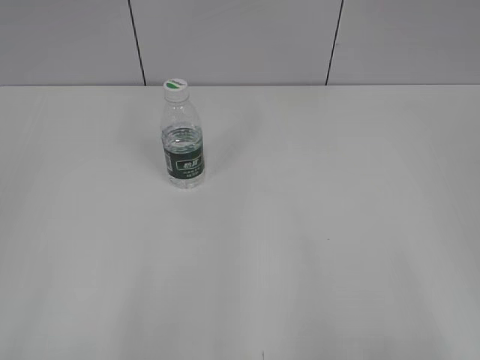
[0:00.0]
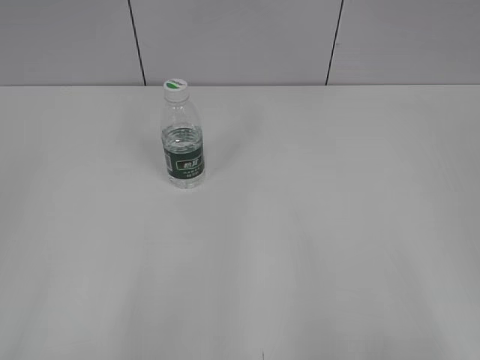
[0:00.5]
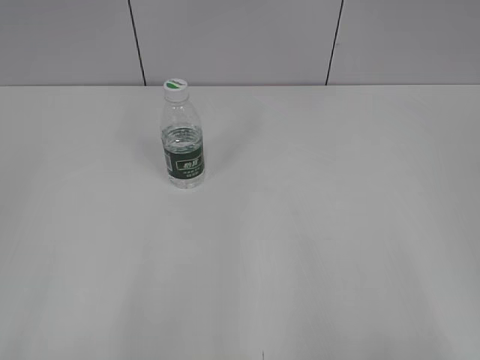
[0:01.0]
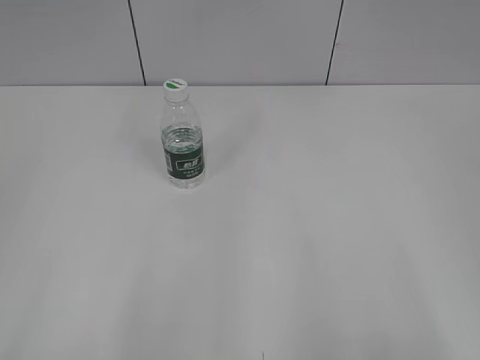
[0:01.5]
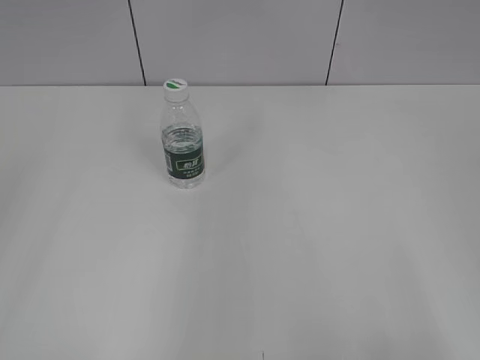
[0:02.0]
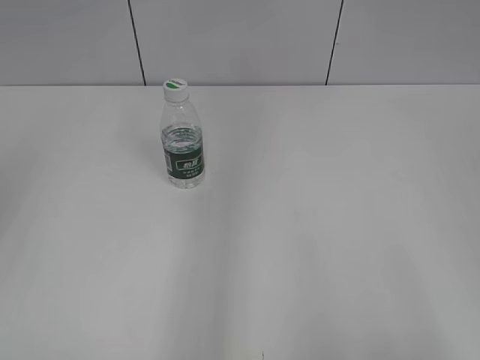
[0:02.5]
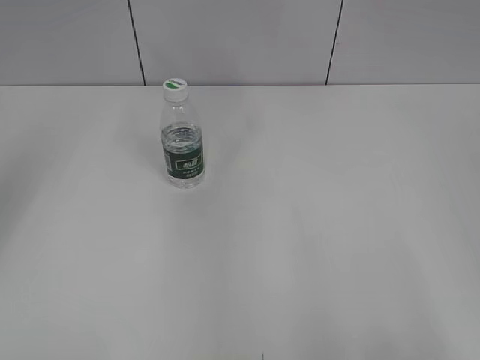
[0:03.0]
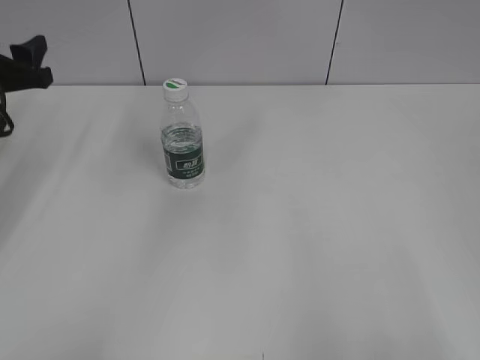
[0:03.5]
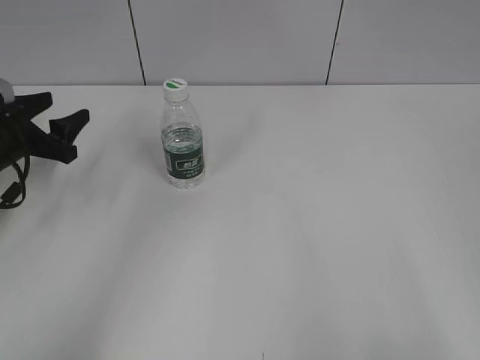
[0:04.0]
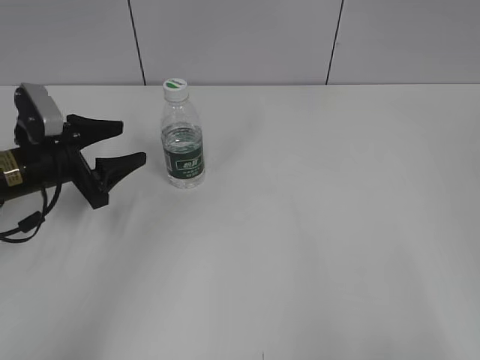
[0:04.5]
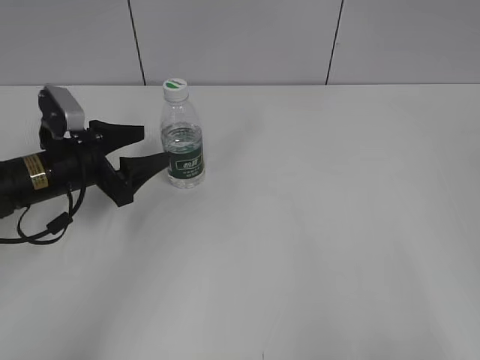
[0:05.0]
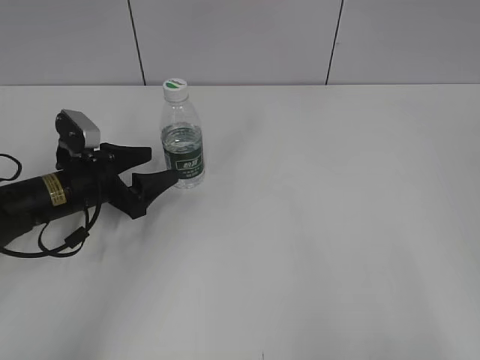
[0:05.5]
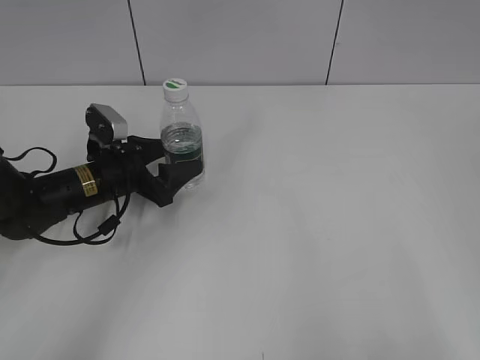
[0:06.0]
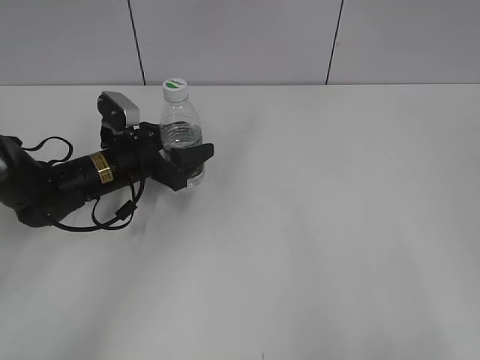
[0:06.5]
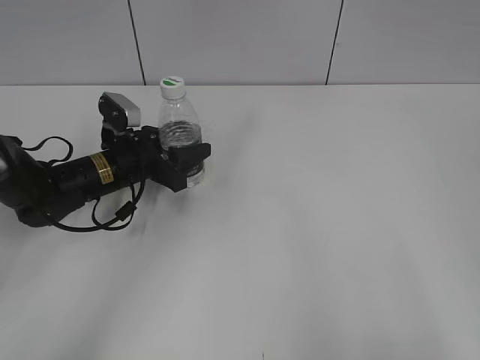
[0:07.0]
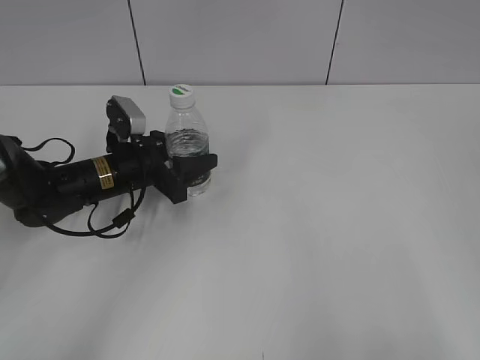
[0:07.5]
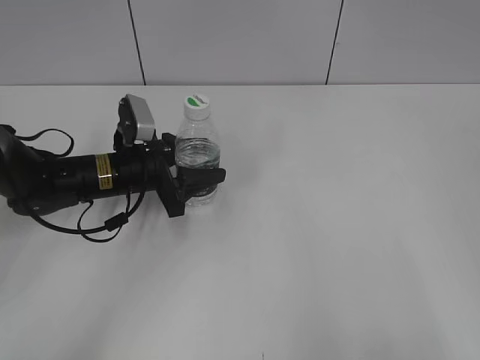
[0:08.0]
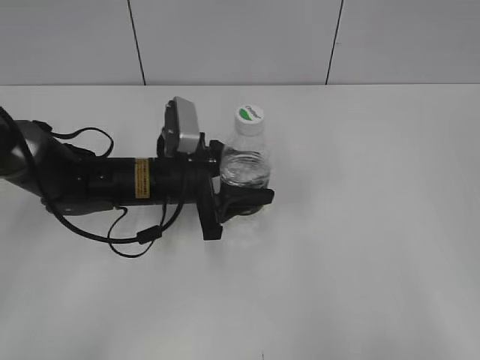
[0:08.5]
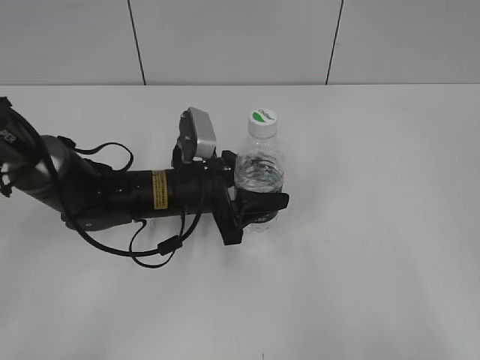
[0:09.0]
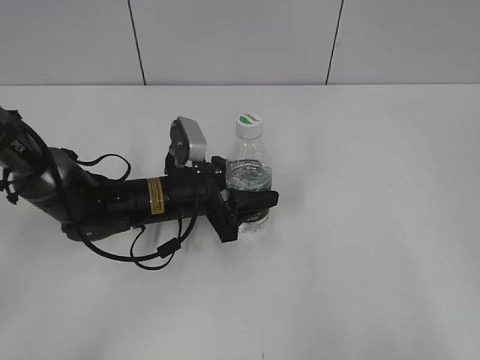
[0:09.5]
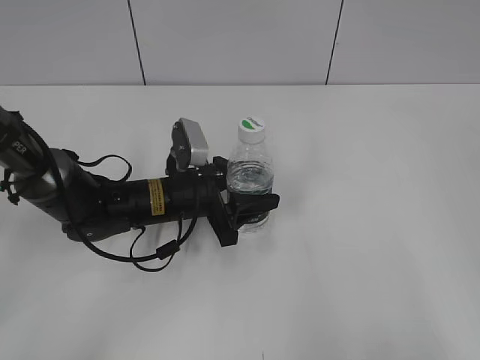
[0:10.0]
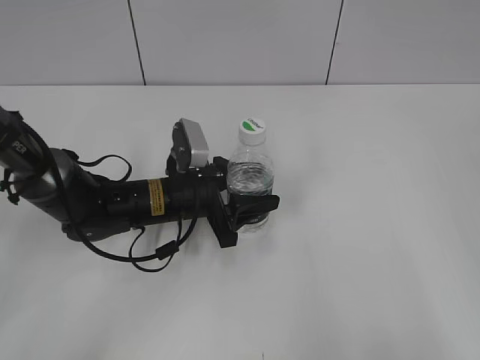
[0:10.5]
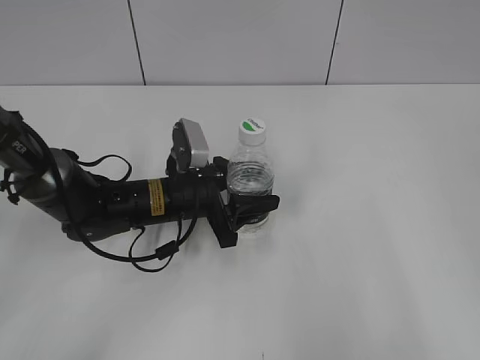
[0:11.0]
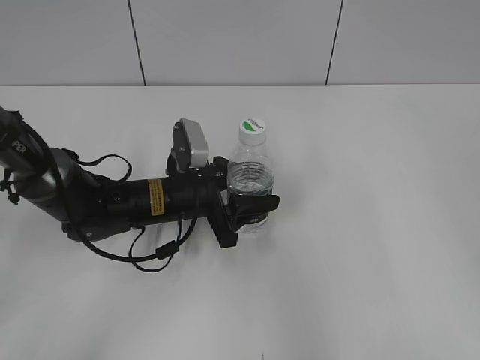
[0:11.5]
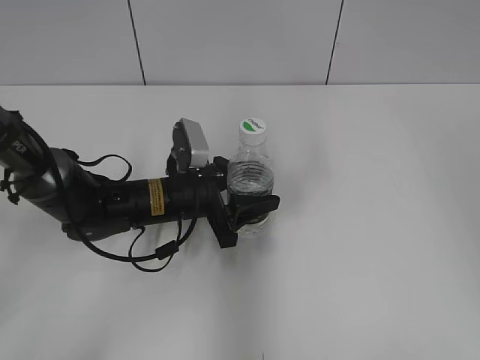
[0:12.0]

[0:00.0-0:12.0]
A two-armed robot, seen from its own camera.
Step, 0:00.0 to 0:07.0: Grasp the bottle and move it to the center of the table with the left gripper.
Step, 0:07.5 to 0:09.5: Lift the bottle and move it to the center of the table with the left gripper.
0:02.0 to 0:04.0: The left gripper goes approximately 40 cm forward and downward.
0:04.0 to 0:06.0: The left gripper moves to the right and downward, approximately 15 cm.
0:06.0 to 0:08.0: The left gripper closes up.
0:08.0 to 0:10.0: The left gripper heads to the right, covering some 5 cm.
0:10.0 to 0:12.0: The right gripper shifts approximately 20 cm forward and upward.

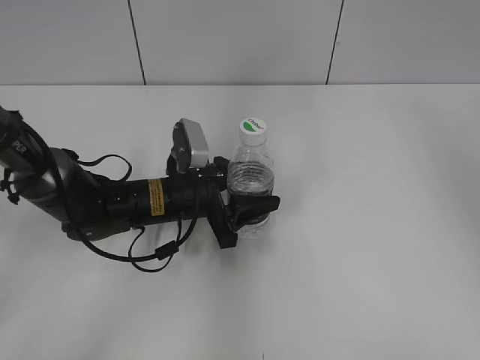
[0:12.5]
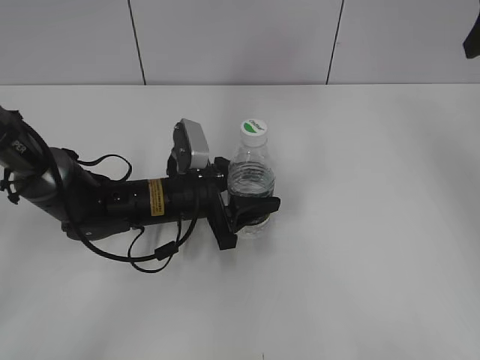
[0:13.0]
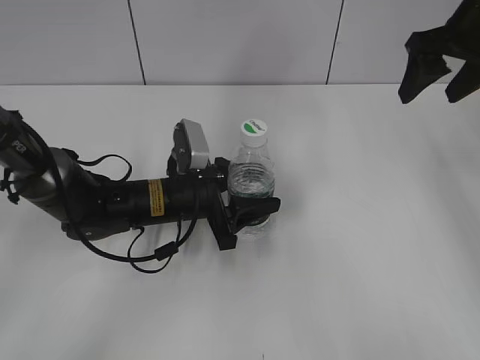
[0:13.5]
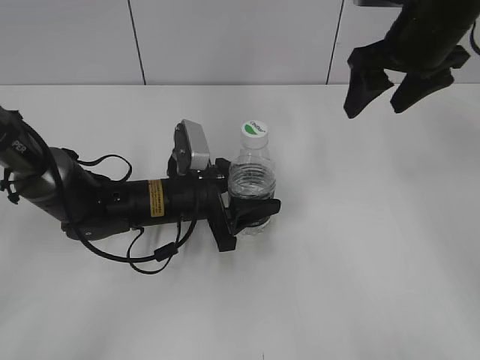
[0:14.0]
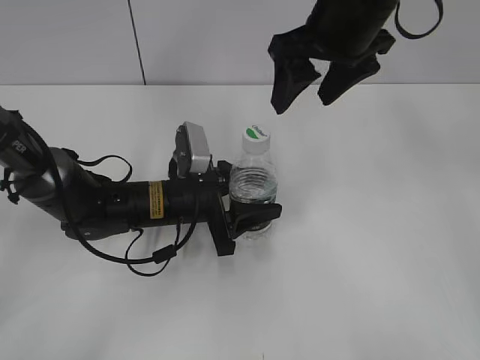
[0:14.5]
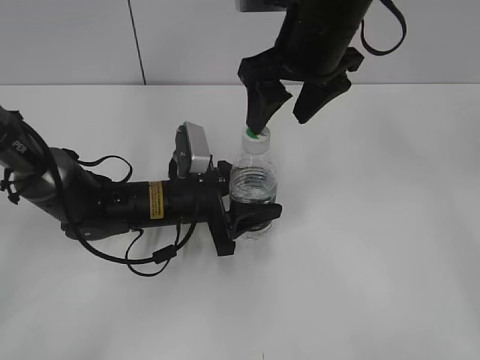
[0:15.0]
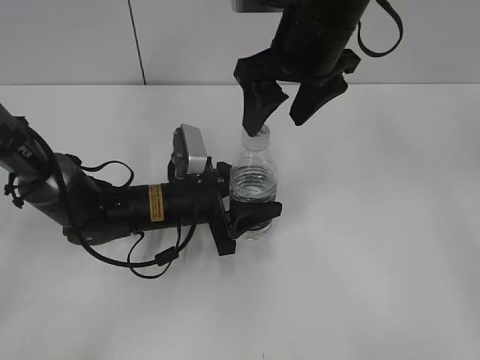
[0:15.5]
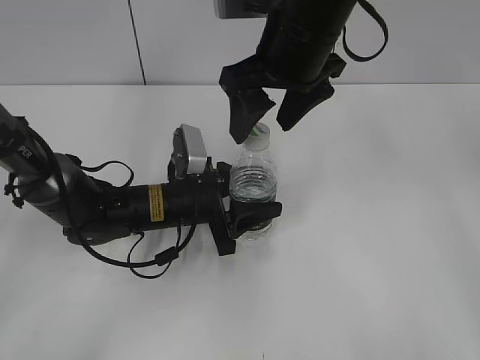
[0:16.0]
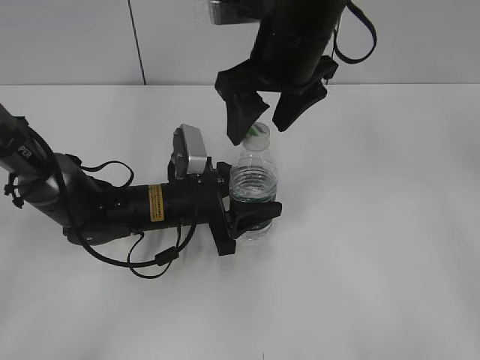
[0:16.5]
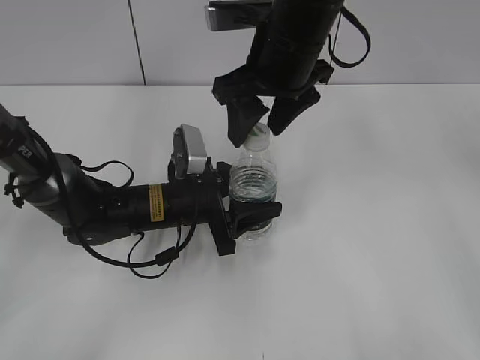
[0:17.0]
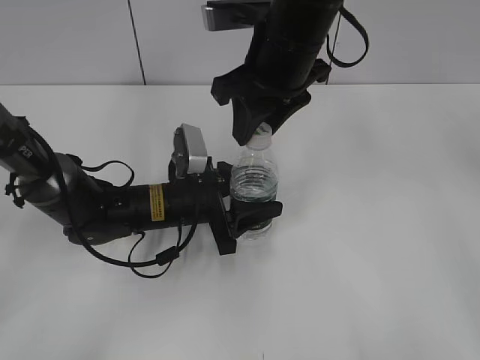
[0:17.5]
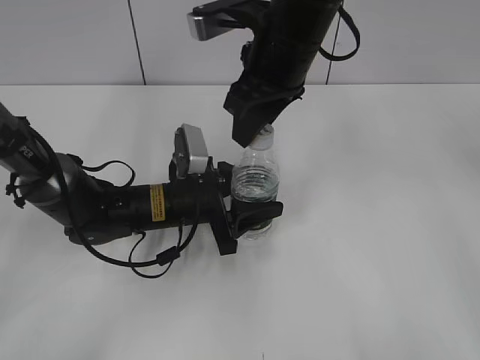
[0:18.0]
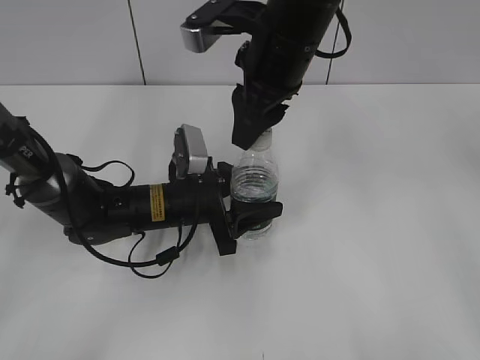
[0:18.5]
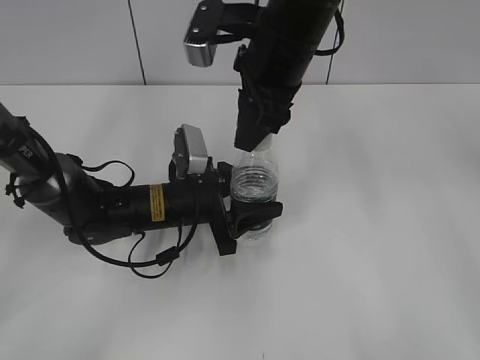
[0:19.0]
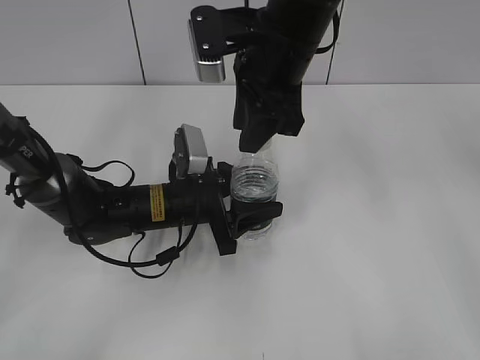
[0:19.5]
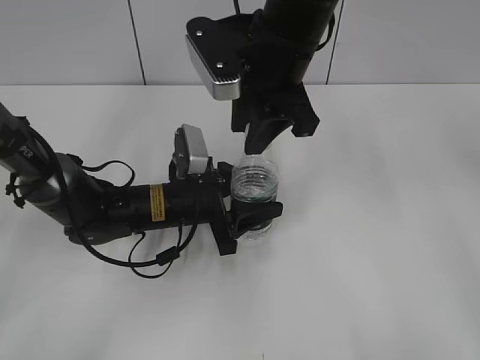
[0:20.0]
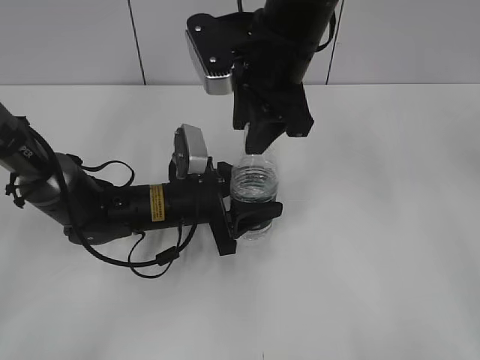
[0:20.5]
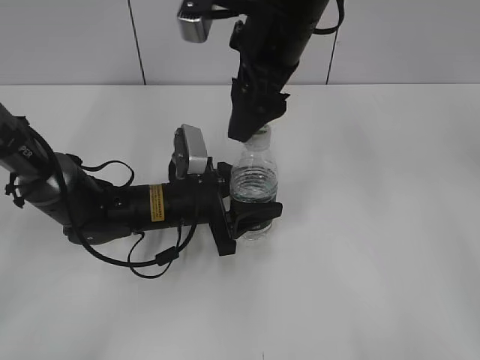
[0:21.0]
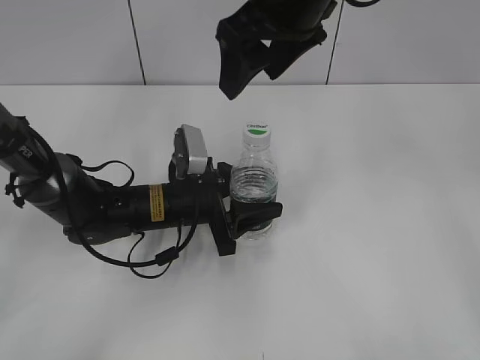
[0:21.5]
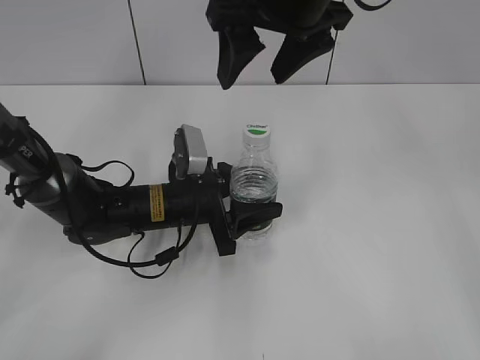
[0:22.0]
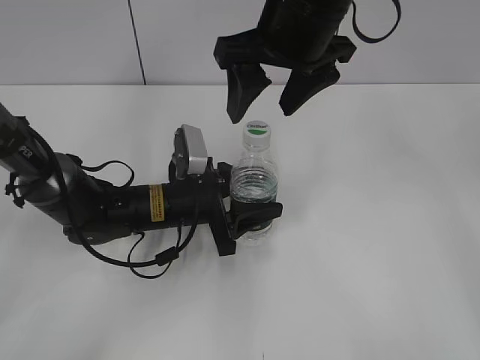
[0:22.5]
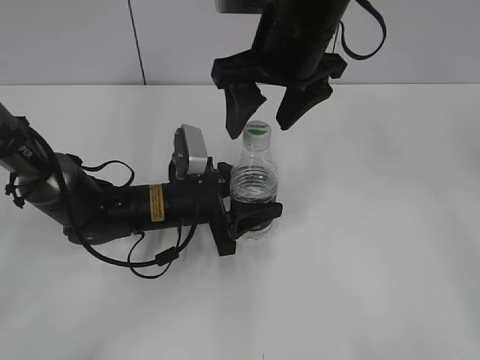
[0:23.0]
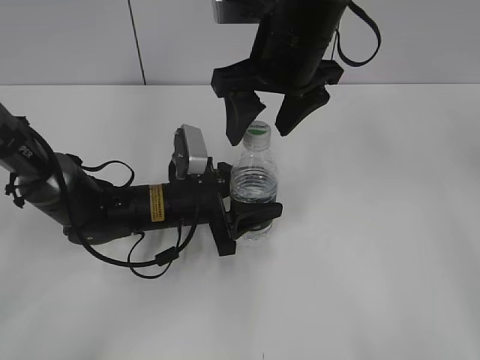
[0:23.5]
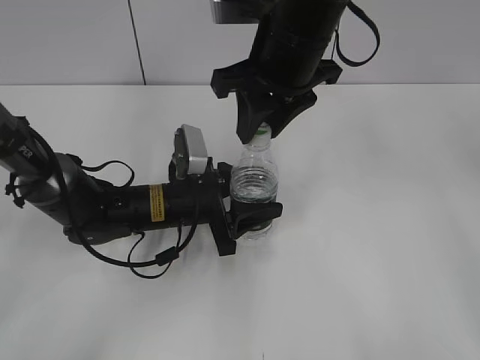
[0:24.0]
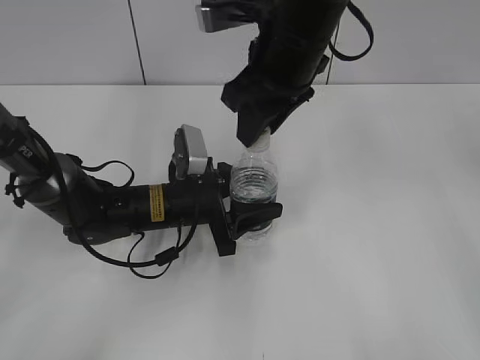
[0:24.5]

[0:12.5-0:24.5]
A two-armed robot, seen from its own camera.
0:12.5 to 0:14.5: The right gripper heads to the left and forward, covering roughly 20 cm.
0:14.5 to 0:16.5: The right gripper goes approximately 5 cm to the left.
0:16.5 to 0:18.5: The right gripper closes.
0:20.5 to 0:22.5: The right gripper opens its fingers.
0:22.5 to 0:24.5: The right gripper closes up.

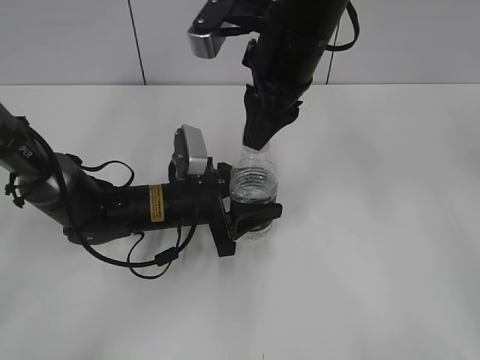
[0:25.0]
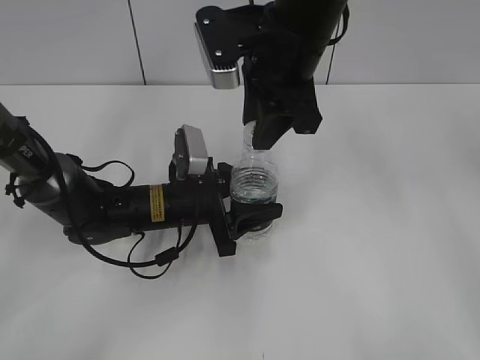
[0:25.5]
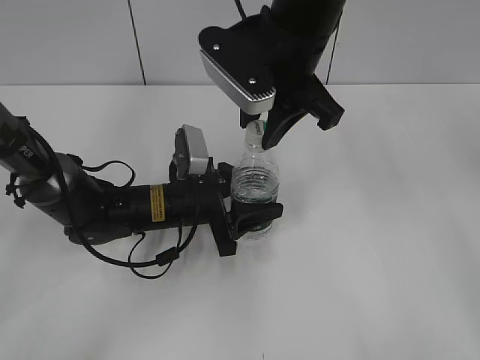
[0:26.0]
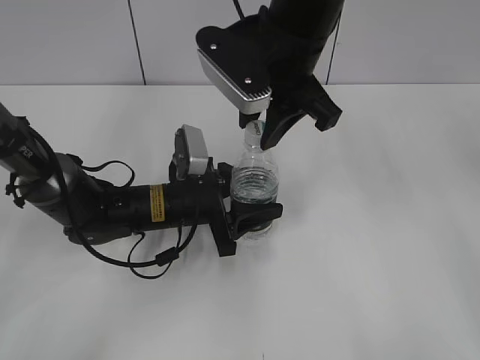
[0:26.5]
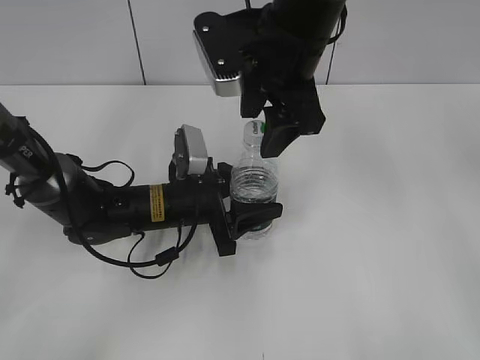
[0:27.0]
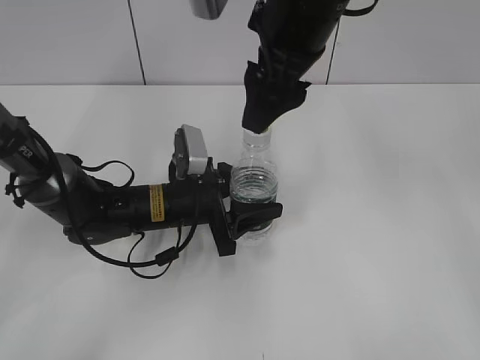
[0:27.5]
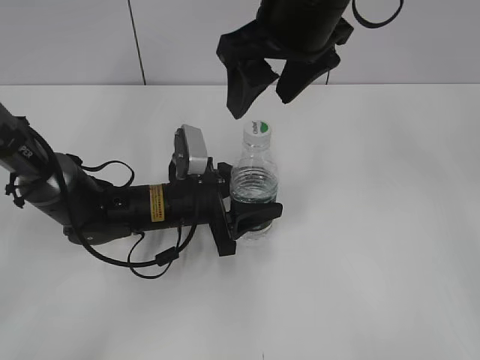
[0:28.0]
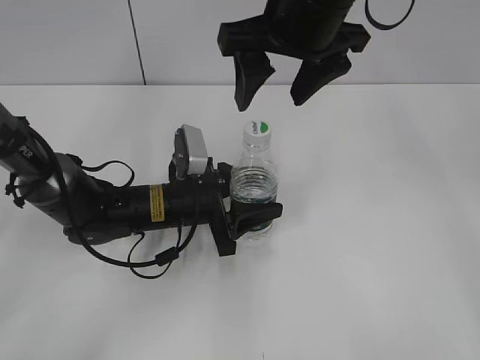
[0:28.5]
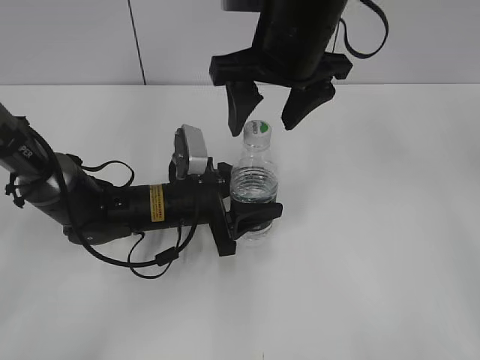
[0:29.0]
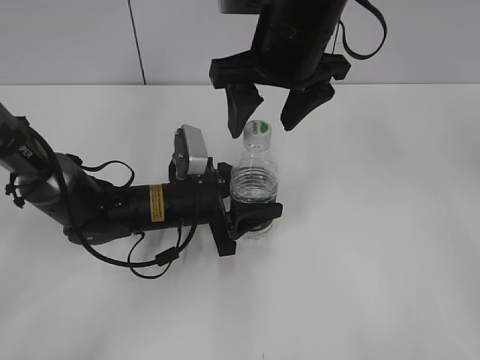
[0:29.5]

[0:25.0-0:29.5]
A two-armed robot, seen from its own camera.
0:25.0 to 0:27.0: The right gripper opens.
